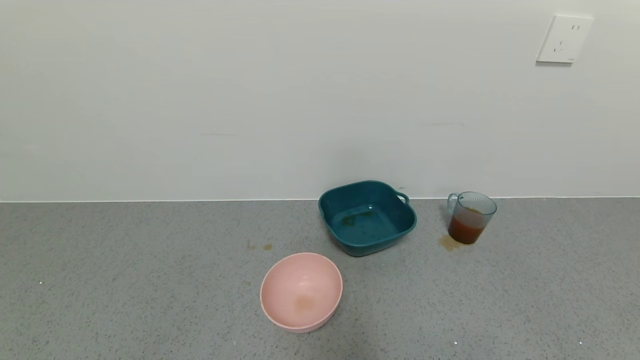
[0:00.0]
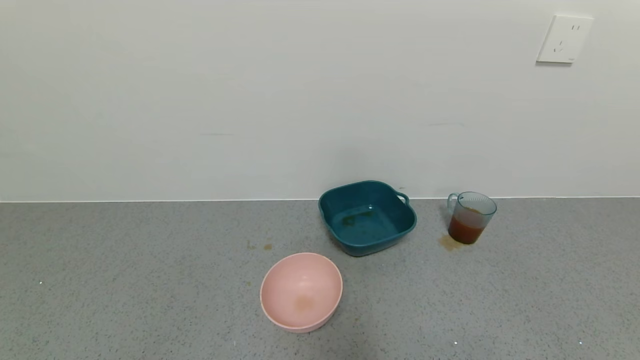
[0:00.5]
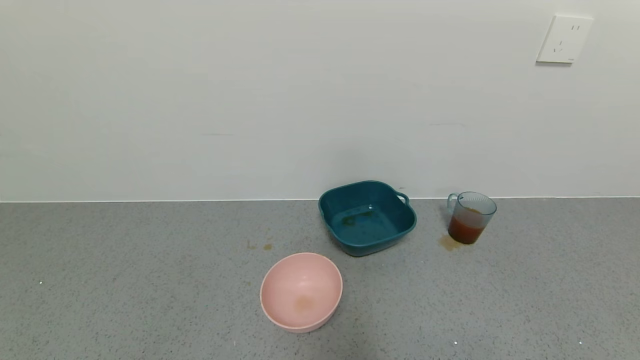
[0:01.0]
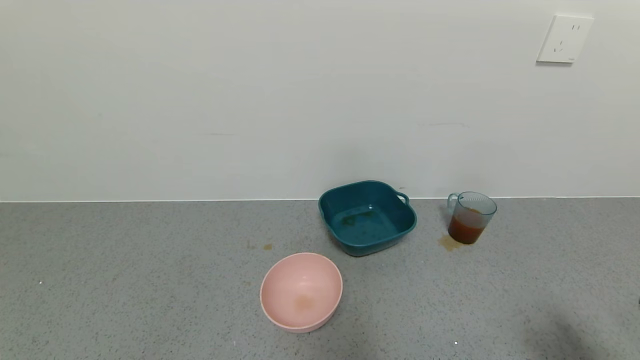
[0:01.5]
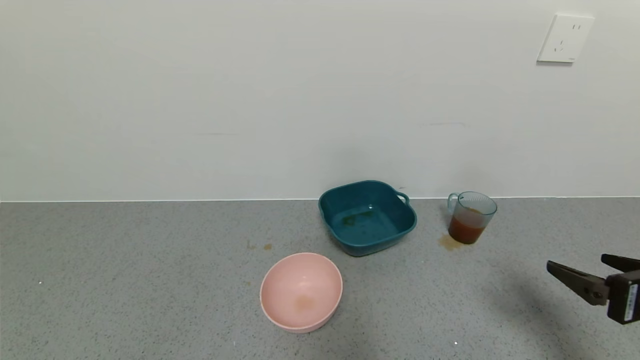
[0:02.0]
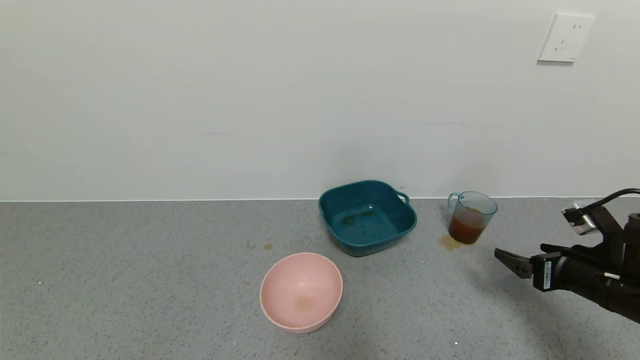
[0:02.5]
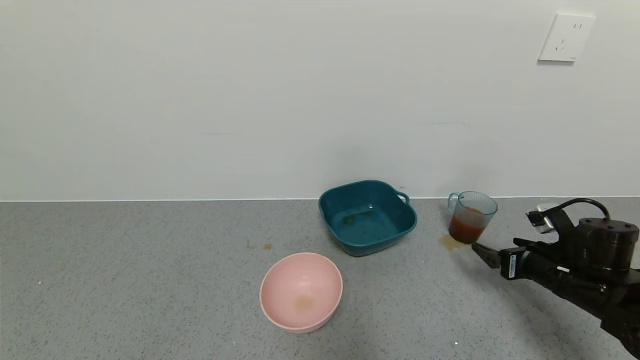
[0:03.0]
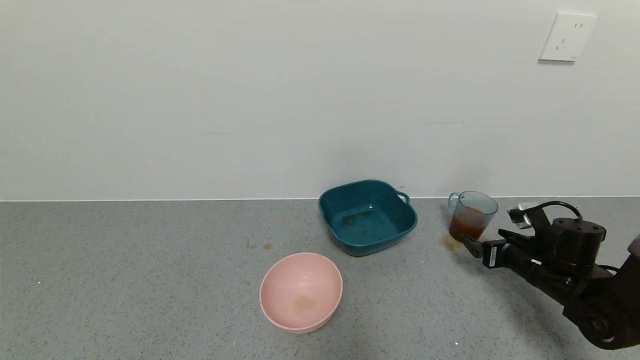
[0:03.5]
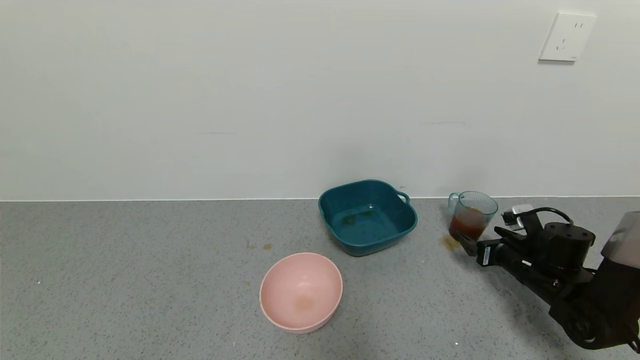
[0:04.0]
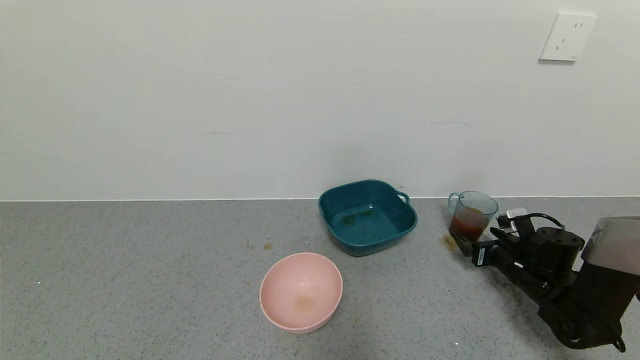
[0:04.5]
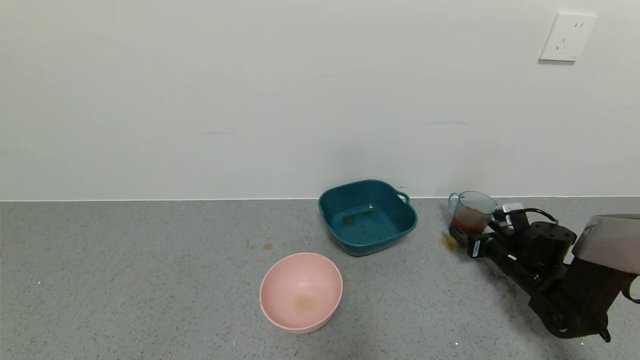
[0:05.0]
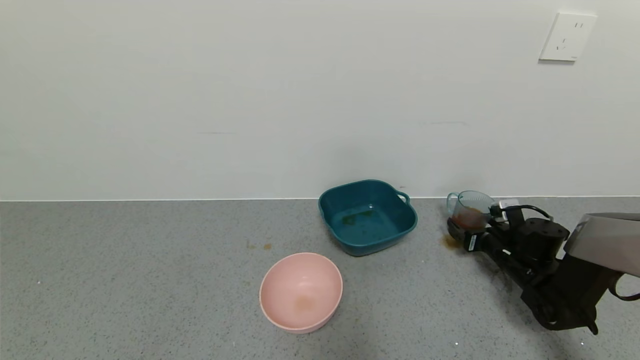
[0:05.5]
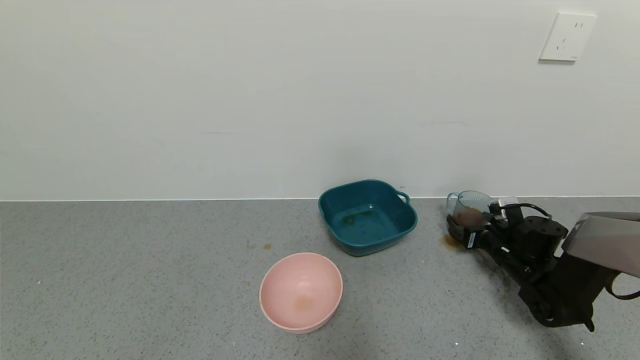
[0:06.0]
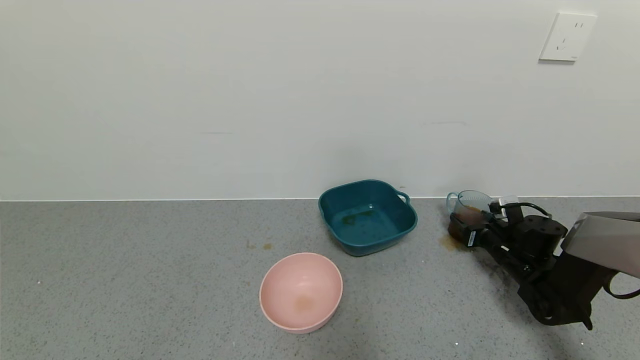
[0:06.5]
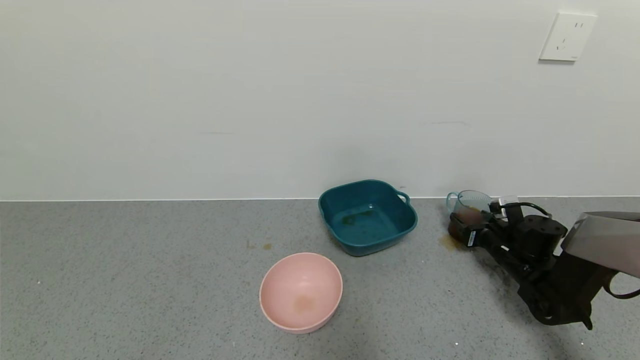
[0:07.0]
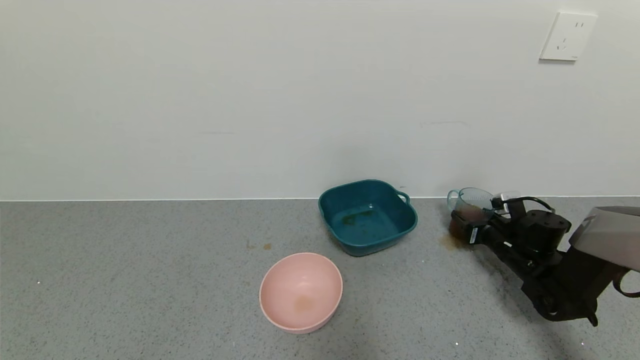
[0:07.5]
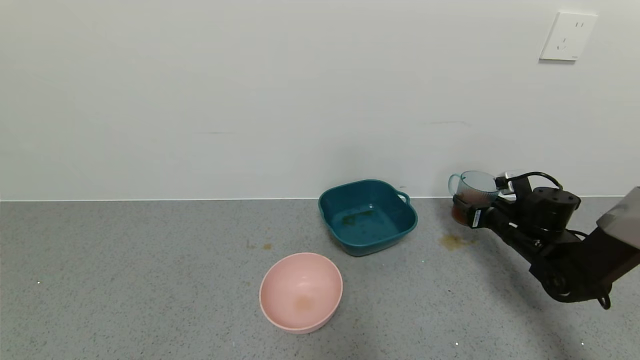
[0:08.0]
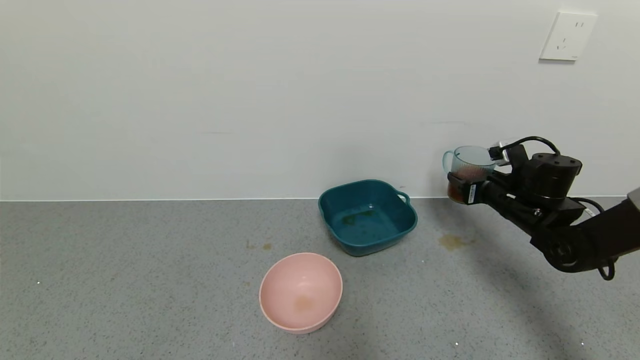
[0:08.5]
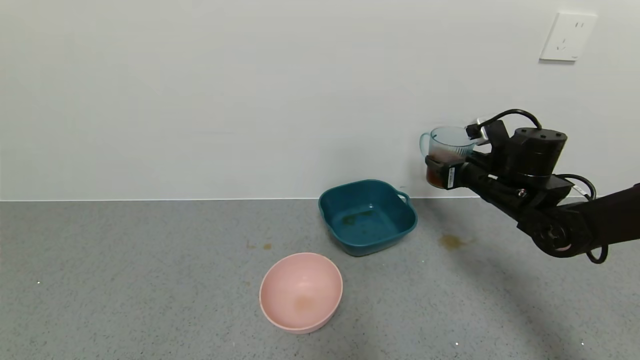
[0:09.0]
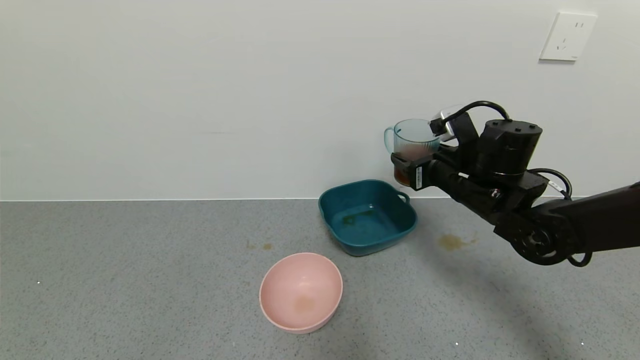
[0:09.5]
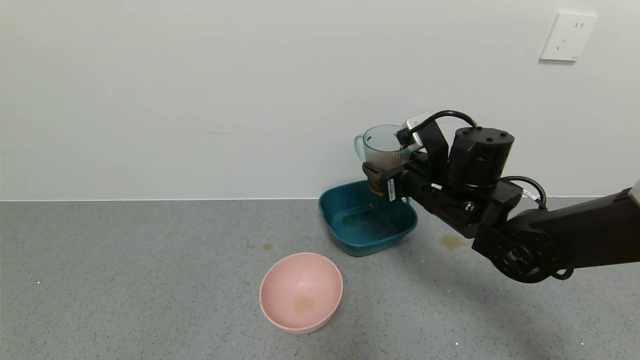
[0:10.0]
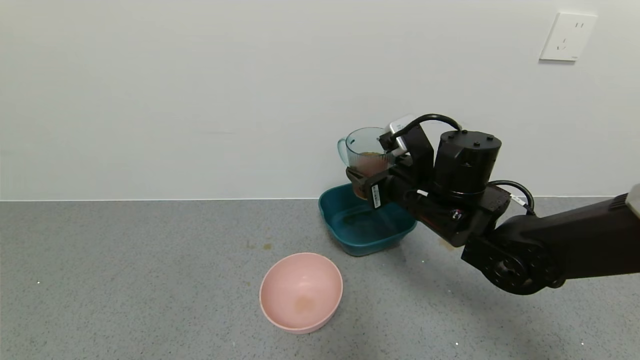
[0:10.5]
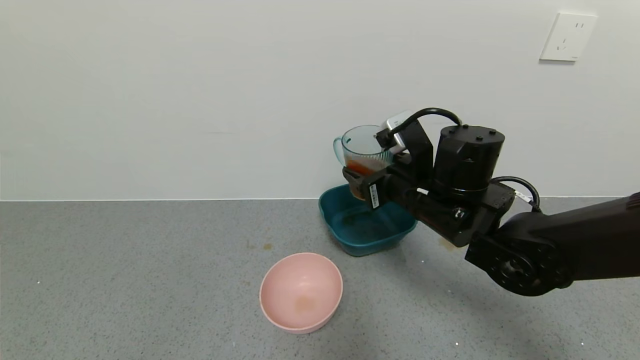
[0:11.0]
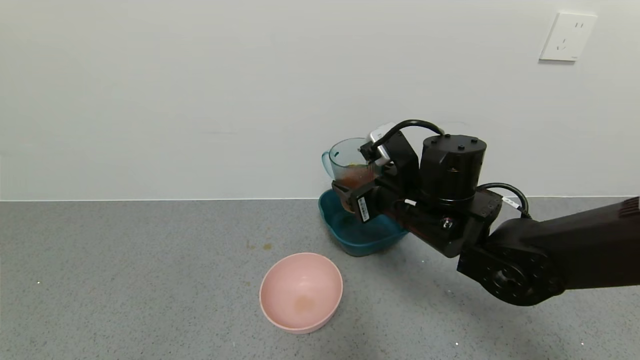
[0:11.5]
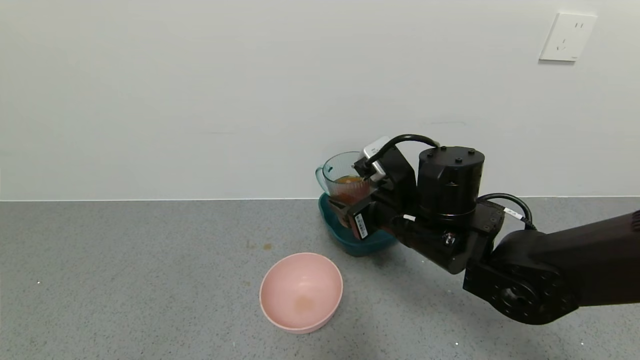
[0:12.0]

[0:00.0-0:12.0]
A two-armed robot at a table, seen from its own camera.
Task of the whole recording: use a gripper to pick up the cup and pour the liquid into a bowl or tray.
0:00.0 to 0:02.0: The right gripper goes roughly 20 cm forward and upward.
0:02.0 to 0:04.0: The right gripper is displaced forward and downward by some 25 cm.
0:04.0 to 0:06.0: The right gripper moves forward, about 5 cm.
0:06.0 to 0:08.0: The right gripper travels upward by roughly 5 cm, and closes its fingers.
0:08.0 to 0:10.0: The right gripper travels to the left and upward by approximately 20 cm.
0:10.0 to 0:12.0: The right gripper shifts by roughly 5 cm.

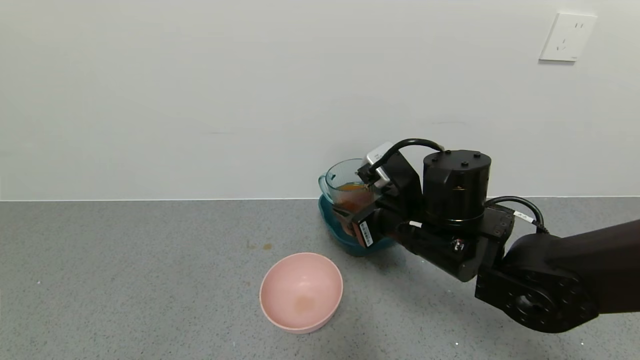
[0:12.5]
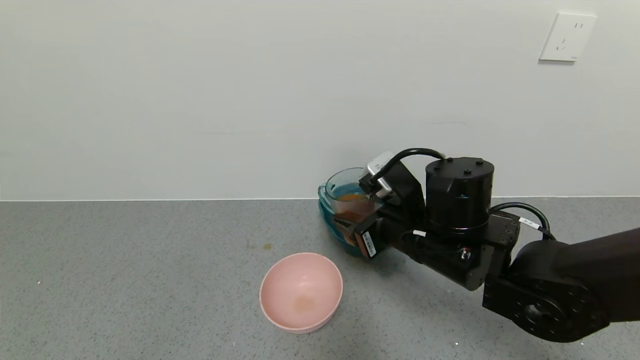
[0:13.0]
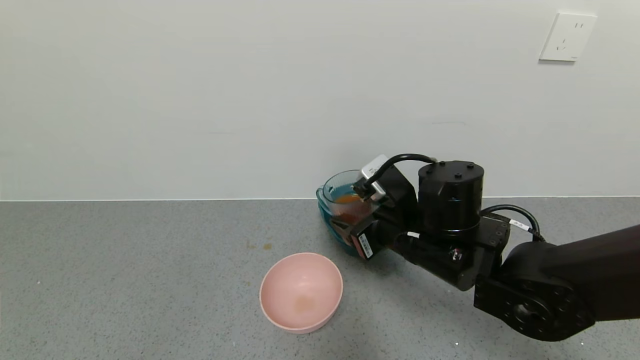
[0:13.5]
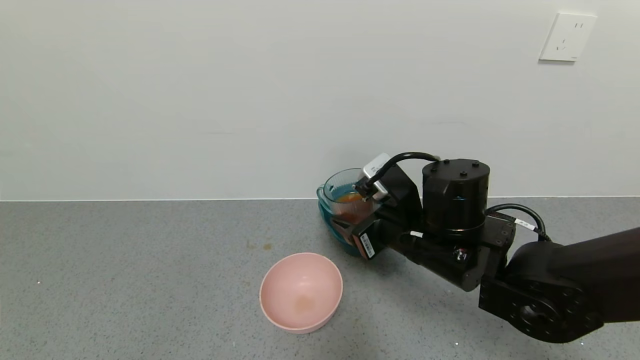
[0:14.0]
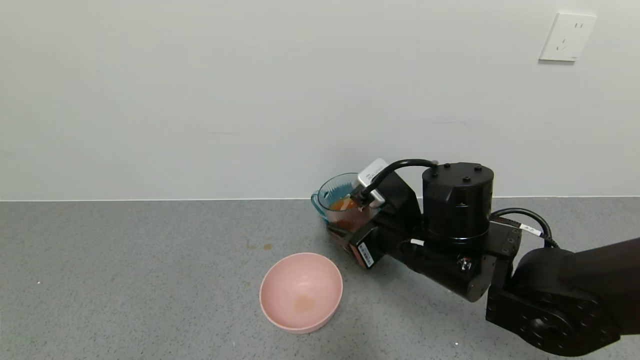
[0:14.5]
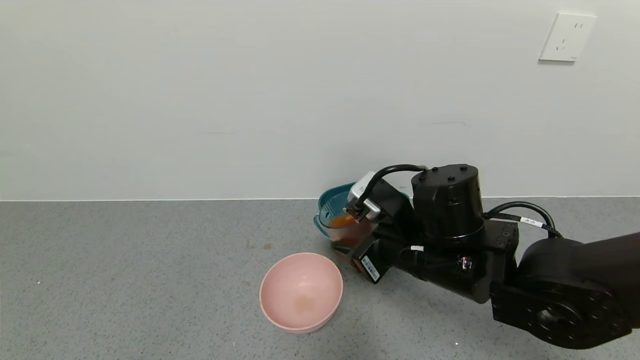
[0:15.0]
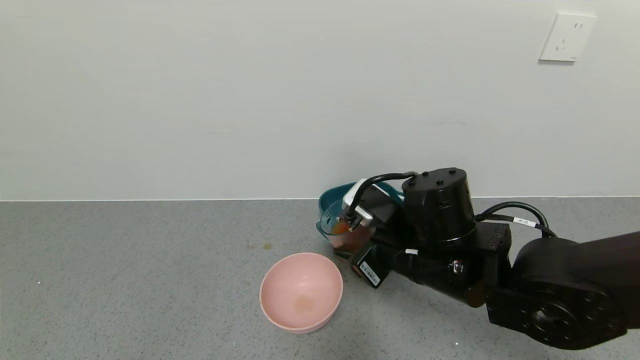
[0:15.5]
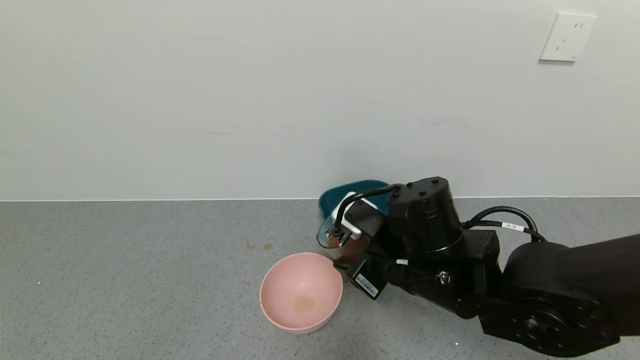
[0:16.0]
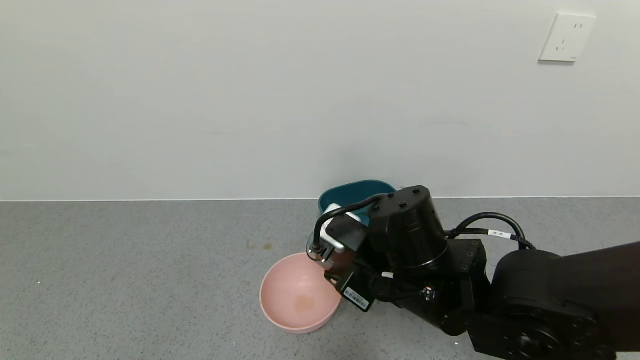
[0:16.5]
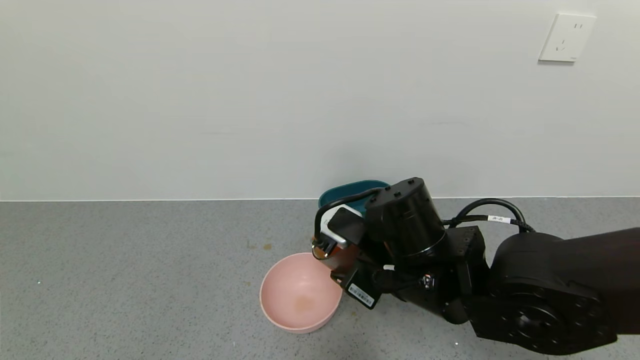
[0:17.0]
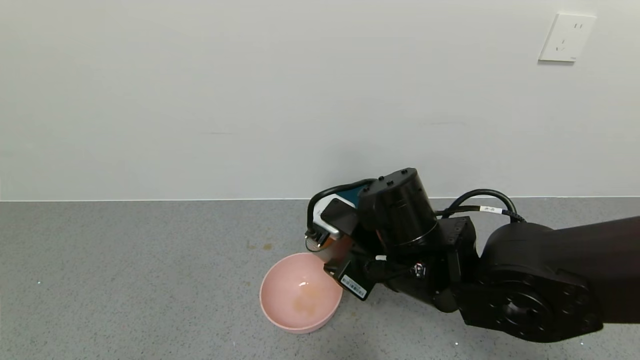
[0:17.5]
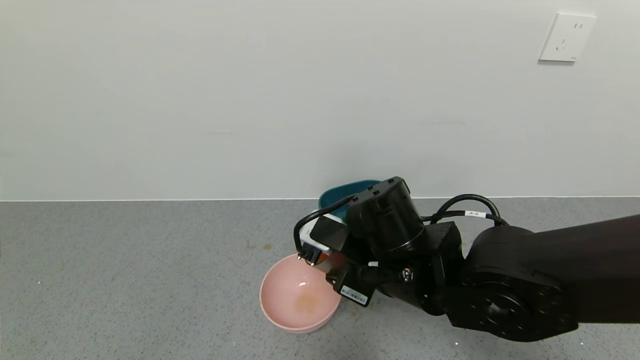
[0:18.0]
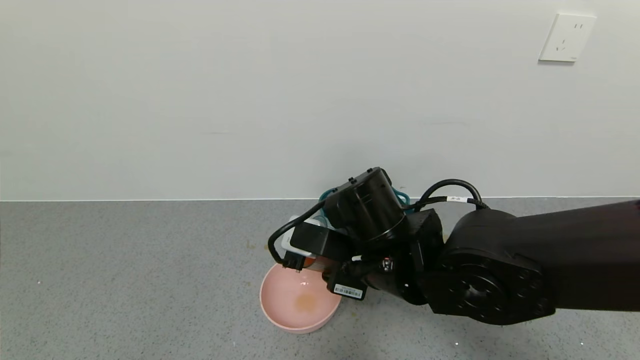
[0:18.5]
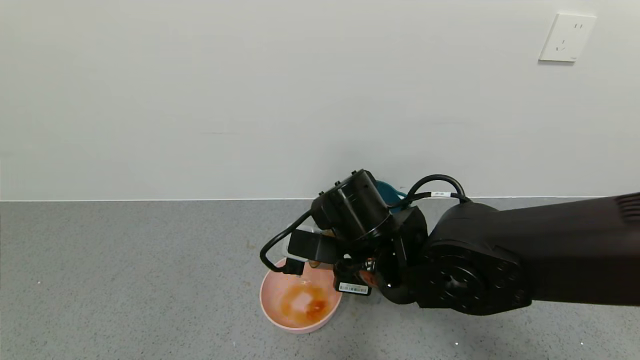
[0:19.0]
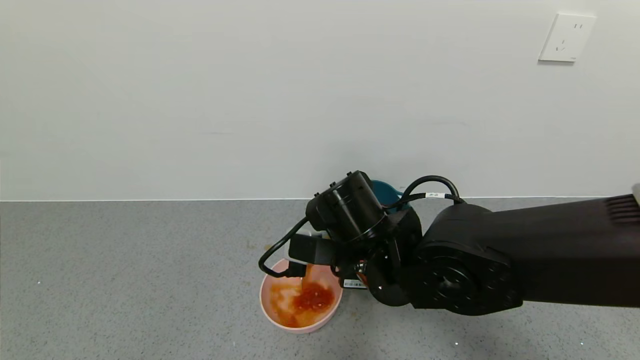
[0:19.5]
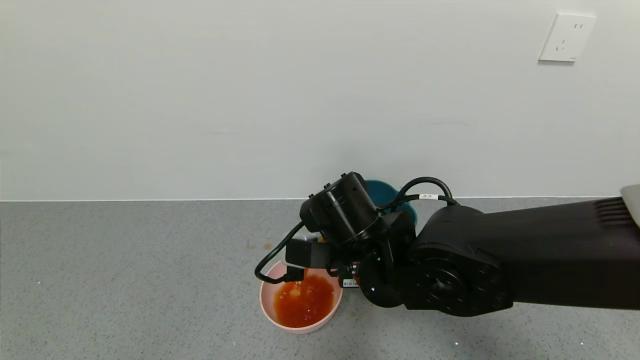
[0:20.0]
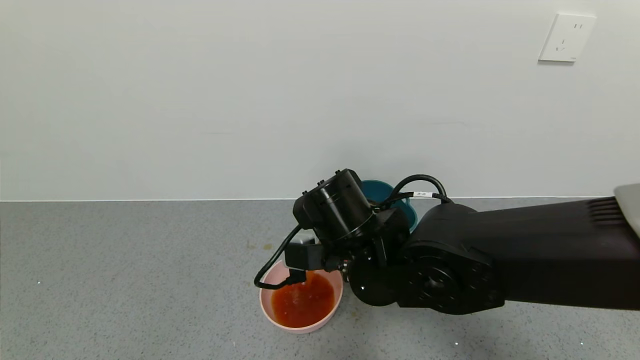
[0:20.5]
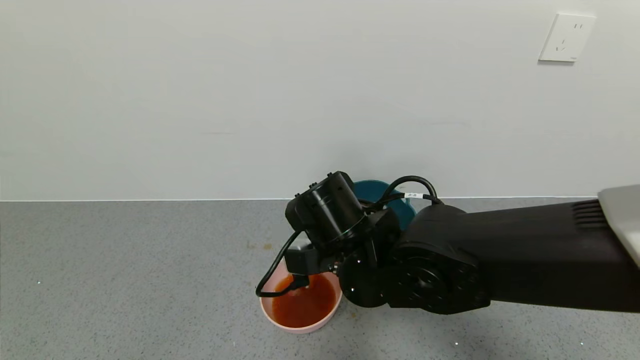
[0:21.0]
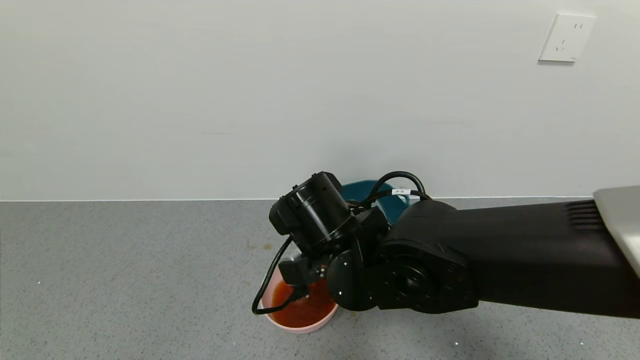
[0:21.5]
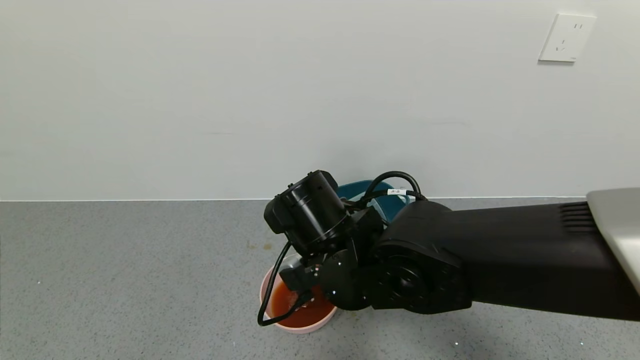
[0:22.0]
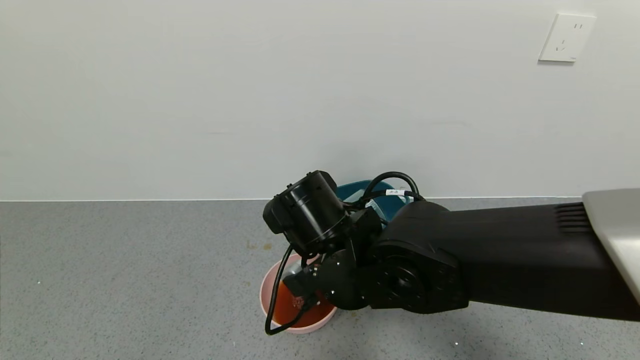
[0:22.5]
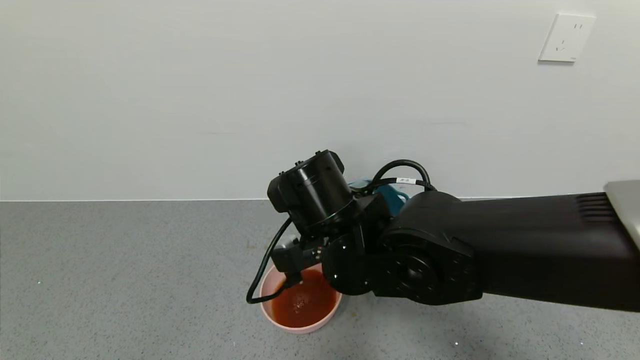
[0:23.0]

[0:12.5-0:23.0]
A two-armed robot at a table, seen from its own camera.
Task of the whole recording: use a gripper to pick up the cup and pour the liquid into a bowl or tray.
Step, 0:12.5 to 0:16.5: Pick up blue cup filled with tea with right gripper.
0:12.5 to 0:14.5: The grippers make only small movements.
